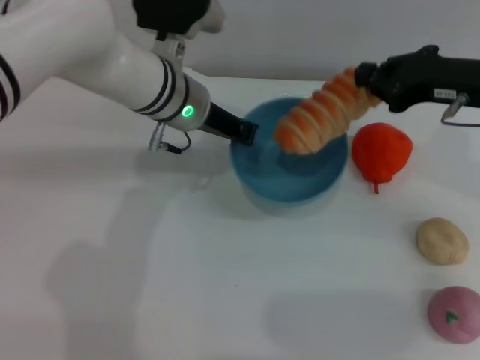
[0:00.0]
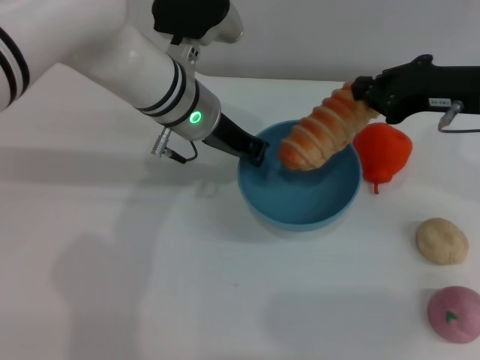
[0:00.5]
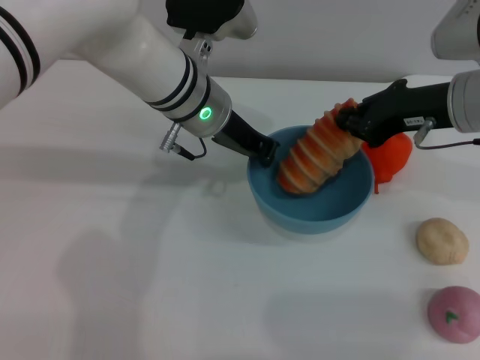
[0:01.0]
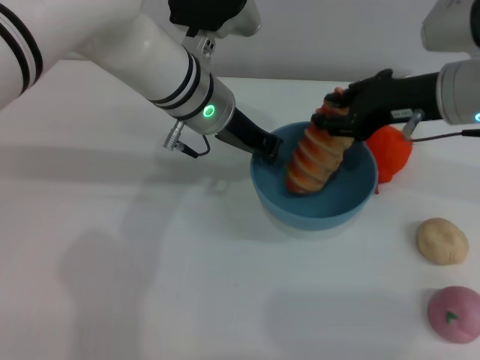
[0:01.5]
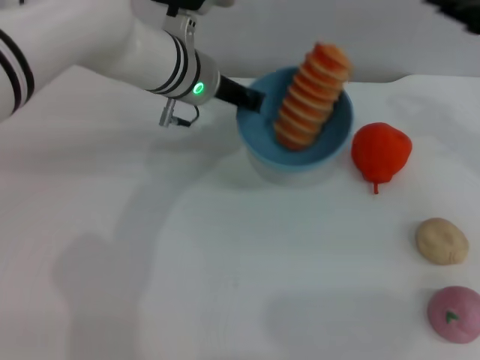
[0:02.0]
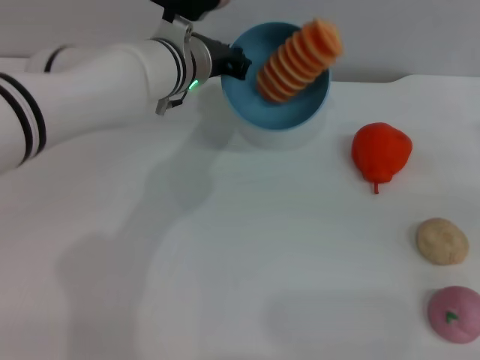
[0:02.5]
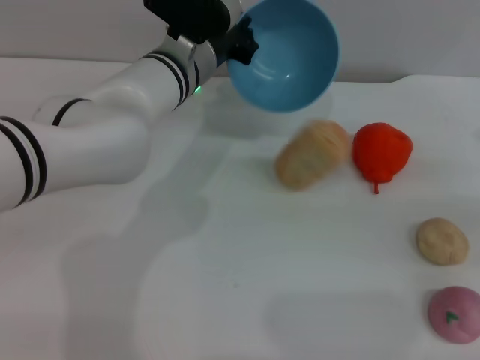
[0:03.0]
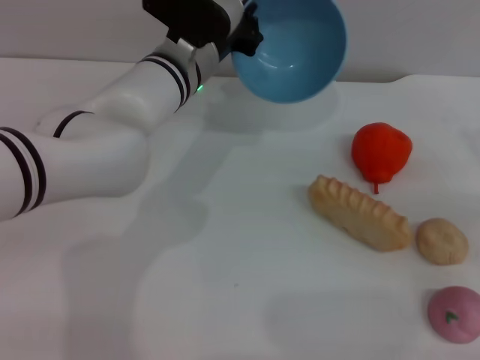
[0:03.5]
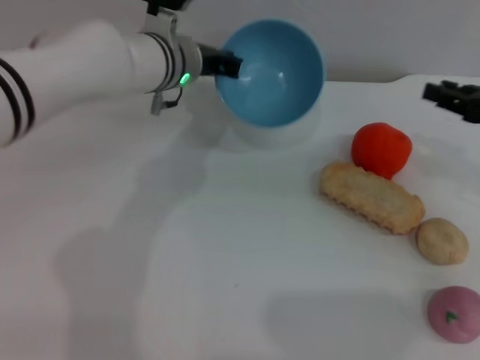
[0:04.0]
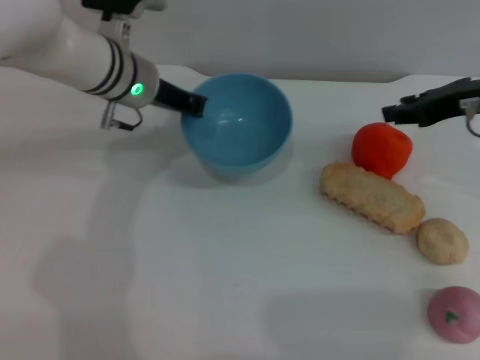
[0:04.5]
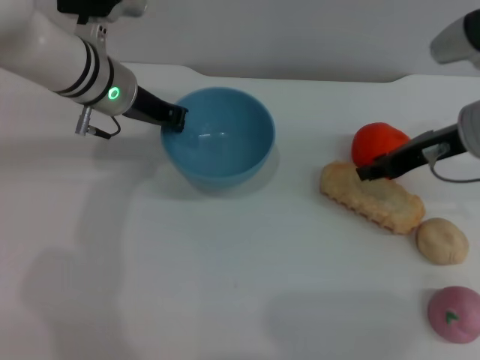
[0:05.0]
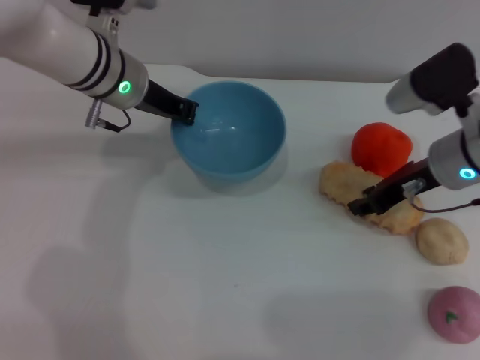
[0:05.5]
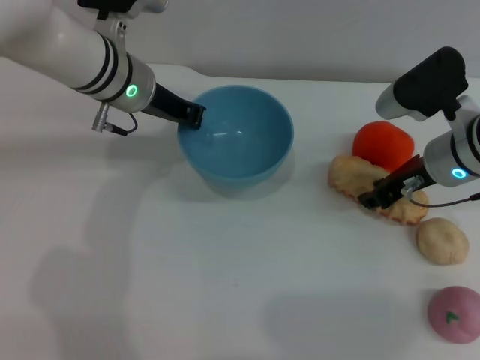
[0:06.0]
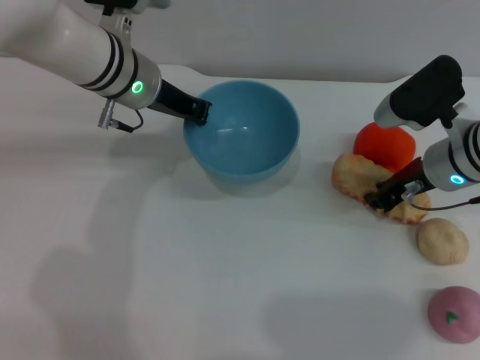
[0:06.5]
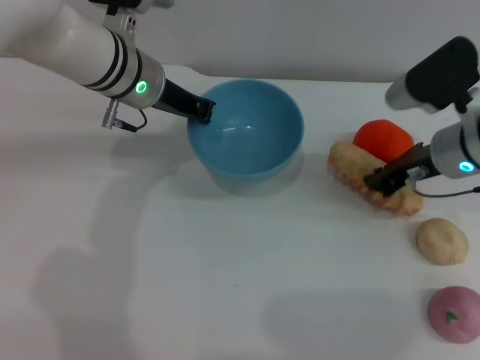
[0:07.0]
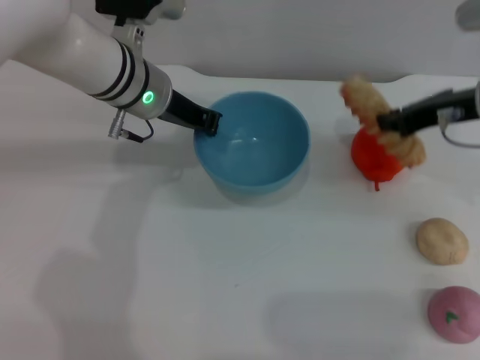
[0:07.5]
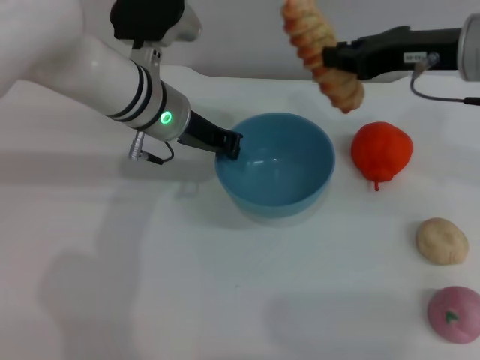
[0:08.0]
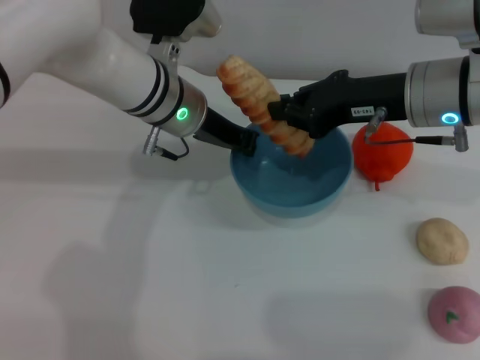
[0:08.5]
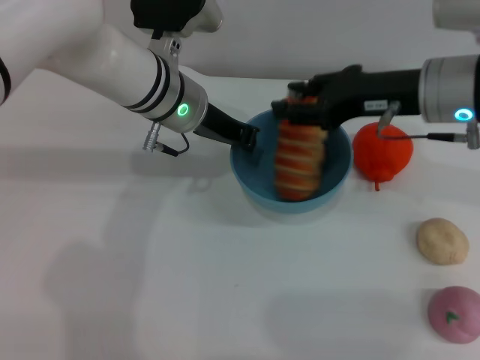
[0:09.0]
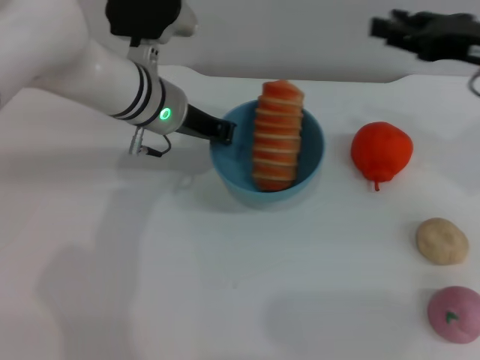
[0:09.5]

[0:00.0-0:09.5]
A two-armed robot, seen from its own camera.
Task of the whole recording: put the bread into the blue bowl and pour it out repeatedly.
Step, 0:00.0 to 0:02.0: Place the bread into the bowl.
Step, 0:02.5 to 0:04.0: Pour the bread out of the bowl.
Step, 0:04.5 to 0:07.0: Pick up the bread with the right gripper.
Step, 0:08.0 to 0:09.0: Place the bread into the bowl.
0:00.0 to 0:02.0: The right gripper goes approximately 5 cm to the right, and opens.
0:02.0 to 0:04.0: The right gripper heads downward, covering roughly 5 cm, and moves some 10 cm to the right and comes back.
0:04.0 to 0:05.5: The right gripper goes about 10 cm to the left. The left gripper goes roughly 5 cm to the left.
0:05.5 to 0:07.5: The right gripper is displaced upward by approximately 5 cm, and closes its fingers.
0:07.5 to 0:09.5: The right gripper travels to the left and back again, about 5 cm each way, and opens its fingers.

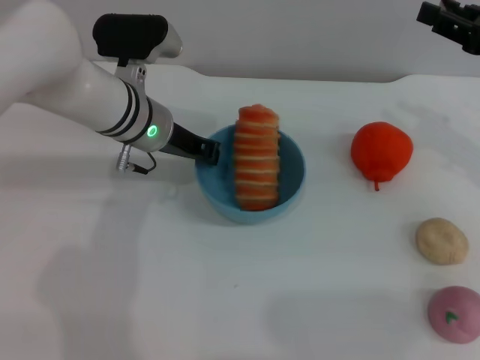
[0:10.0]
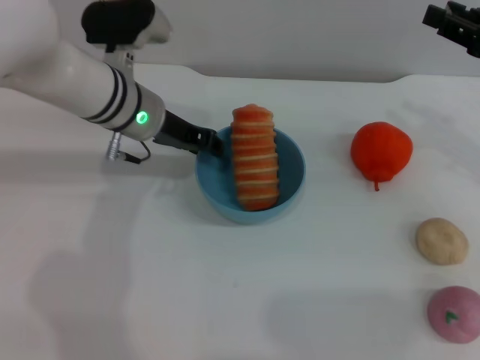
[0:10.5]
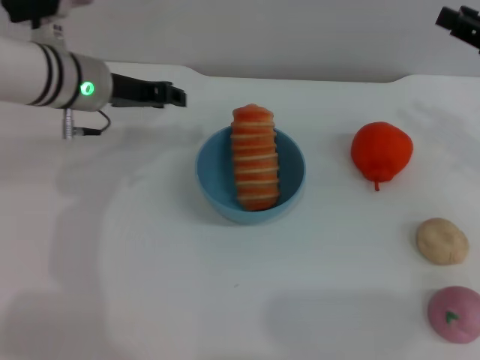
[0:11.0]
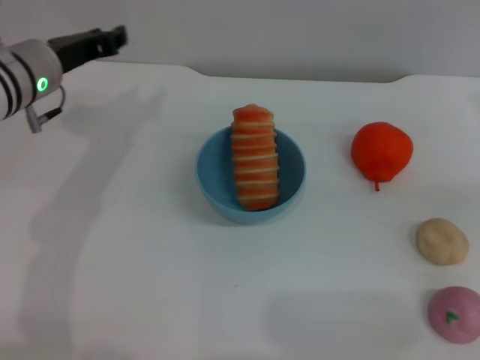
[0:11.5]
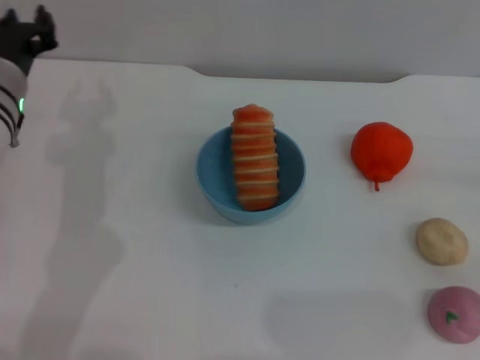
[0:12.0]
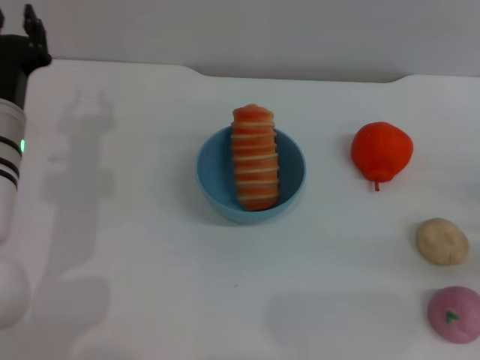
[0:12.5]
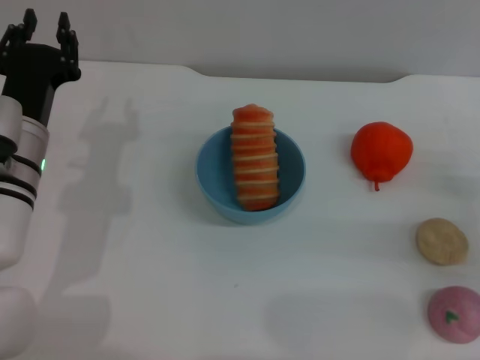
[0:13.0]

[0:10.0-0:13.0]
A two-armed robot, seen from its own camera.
Task of the whole recording: put the bread into the blue bowl and pour it out repeatedly.
0:10.0 to 0:11.5: The right gripper is displaced to the right by about 5 cm. Meanwhile the left gripper moves to the left, some 10 cm, and opens its fingers.
0:11.5 to 0:13.0: The left gripper goes about 10 cm backward and downward. The right gripper is displaced downward by approximately 10 cm.

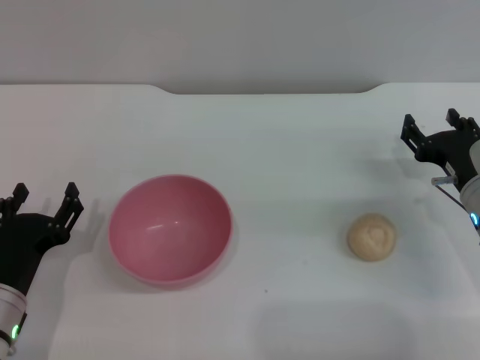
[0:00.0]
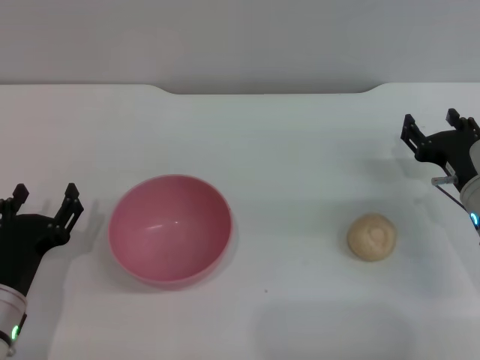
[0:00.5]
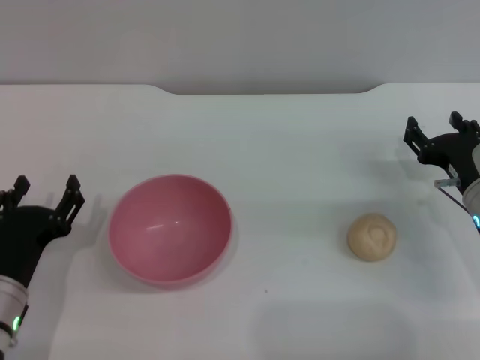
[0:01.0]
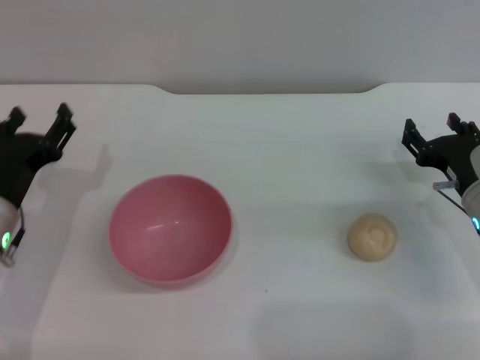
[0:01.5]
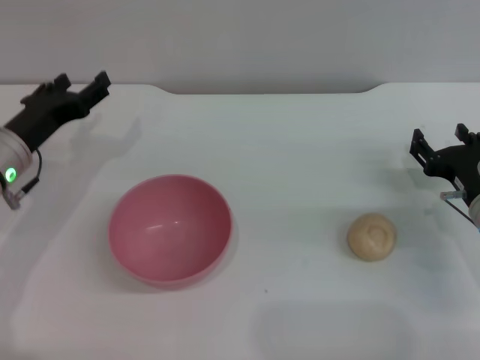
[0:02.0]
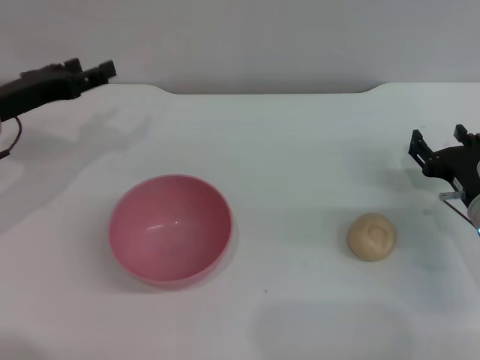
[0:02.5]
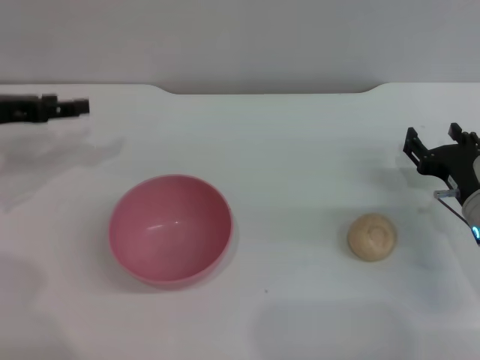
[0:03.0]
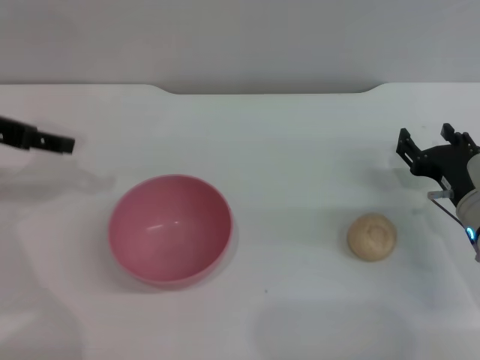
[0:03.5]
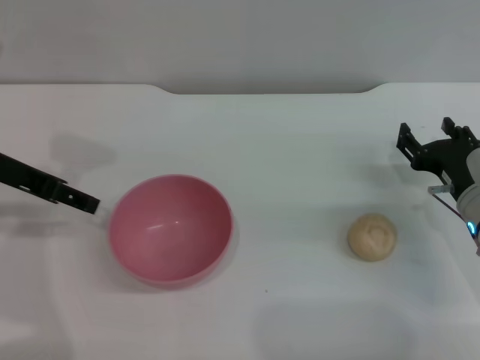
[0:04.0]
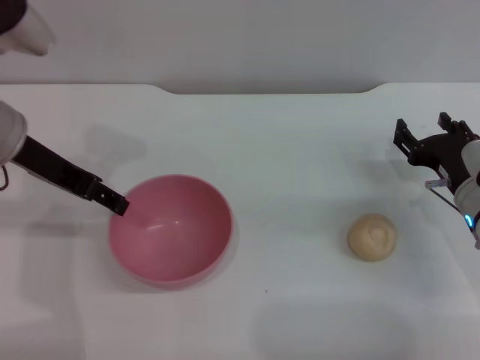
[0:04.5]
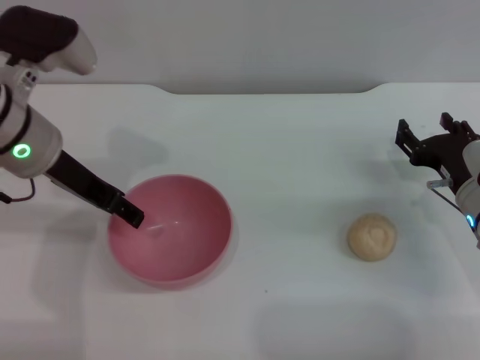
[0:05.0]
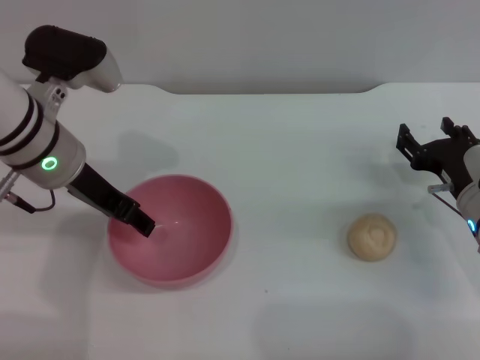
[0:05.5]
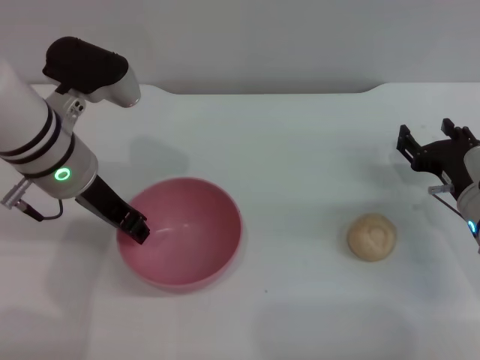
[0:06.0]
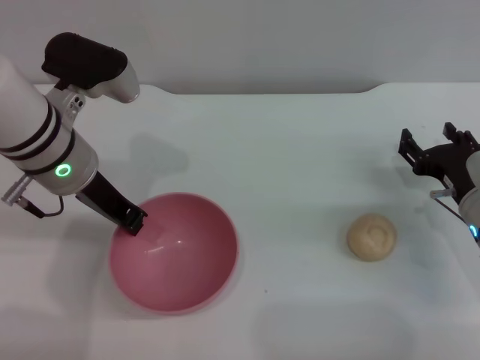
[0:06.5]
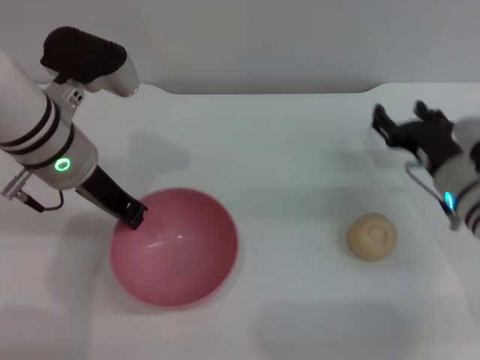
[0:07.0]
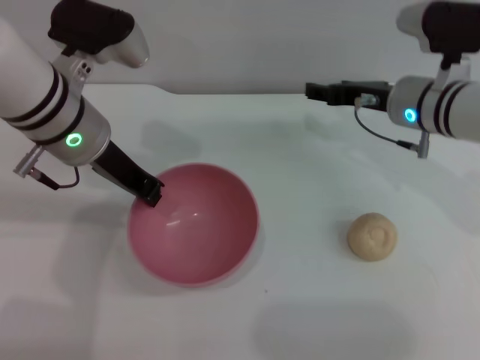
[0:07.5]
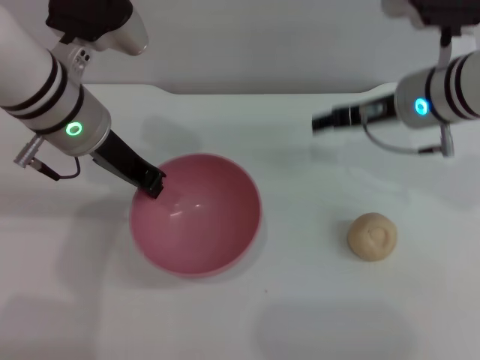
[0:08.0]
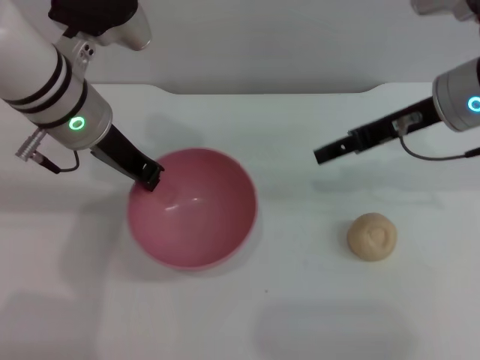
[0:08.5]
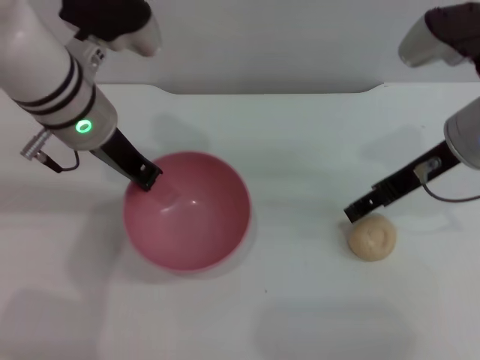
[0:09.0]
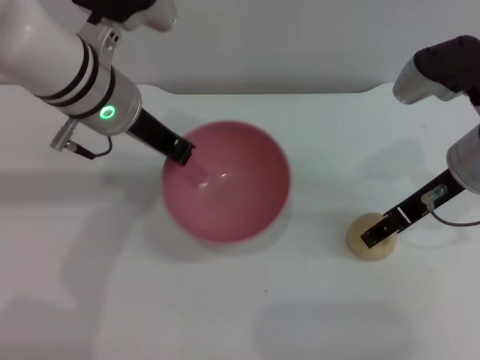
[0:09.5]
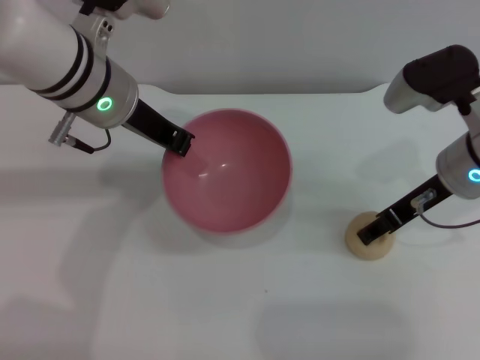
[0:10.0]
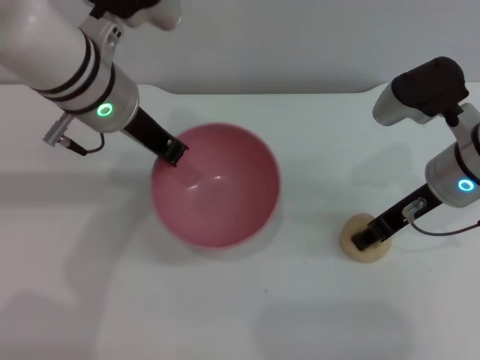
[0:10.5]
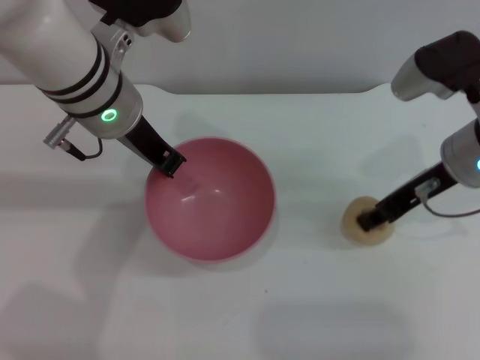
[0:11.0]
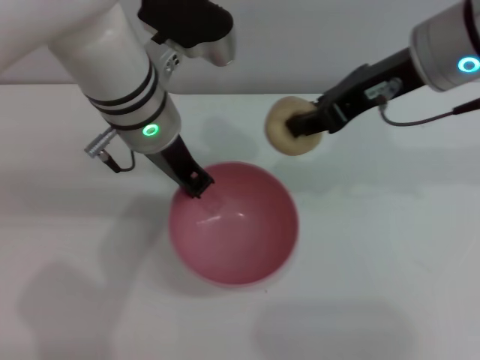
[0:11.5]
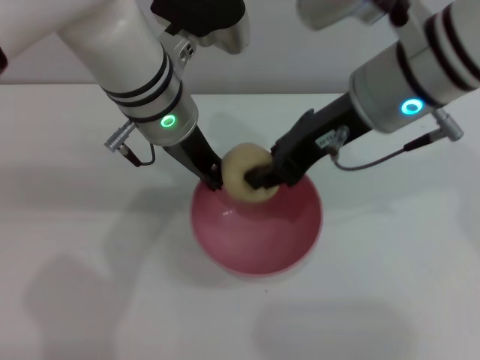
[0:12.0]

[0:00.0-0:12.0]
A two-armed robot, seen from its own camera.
Task of the whole recording: put the egg yolk pastry into the pink bowl and pour it out repeatedly.
Step, 0:00.0 to 0:08.0: Pick up the bowl with the left gripper.
Step, 0:08.5 to 0:11.0: Pick up the egg yolk pastry with the right gripper.
0:00.0 to 0:02.0: The left gripper heads forward and upward, covering some 15 cm.
0:02.0 to 0:04.0: The left gripper moves upward, about 10 cm.
0:04.0 to 0:06.0: The left gripper heads to the right, covering some 10 cm.
0:06.0 to 0:08.0: The left gripper closes its fingers. Meanwhile the right gripper moves upward, to the left and forward, some 20 cm.
0:08.0 to 0:10.0: The right gripper shifts by about 5 cm.
0:10.0 to 0:12.0: The left gripper goes some 5 cm to the right; the right gripper shifts some 15 cm upward and to the left, and closes.
